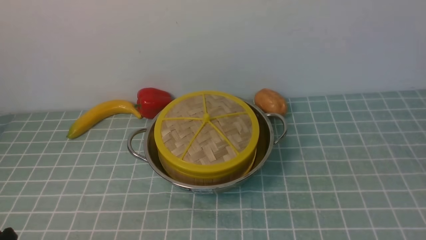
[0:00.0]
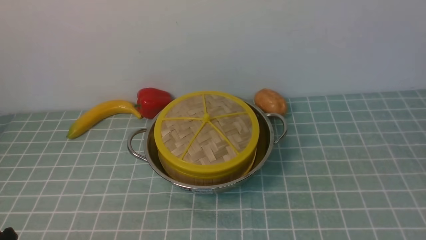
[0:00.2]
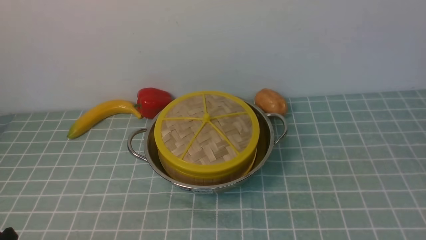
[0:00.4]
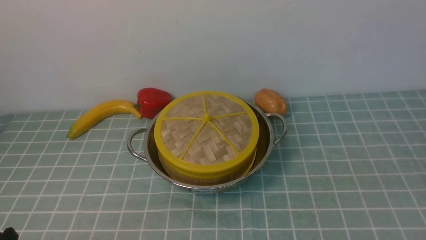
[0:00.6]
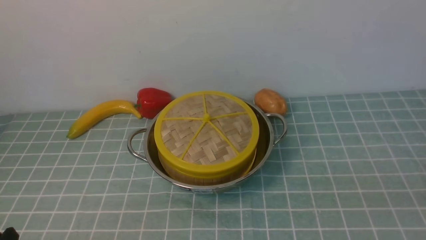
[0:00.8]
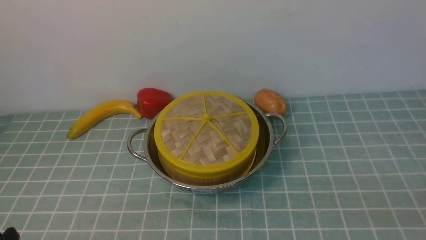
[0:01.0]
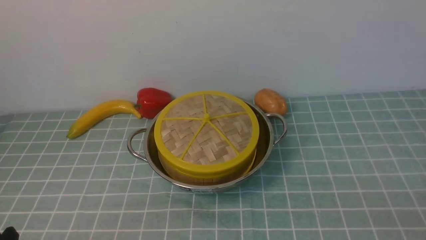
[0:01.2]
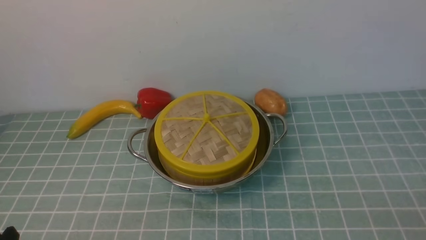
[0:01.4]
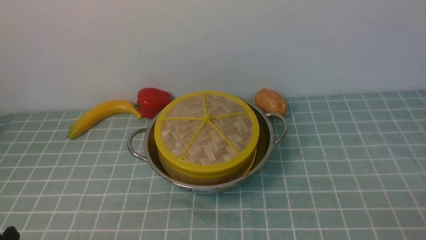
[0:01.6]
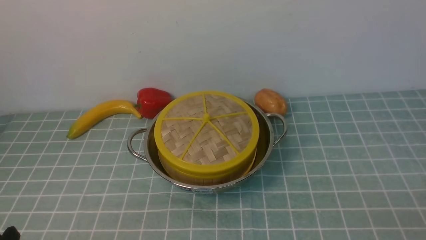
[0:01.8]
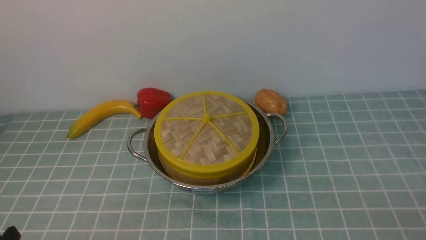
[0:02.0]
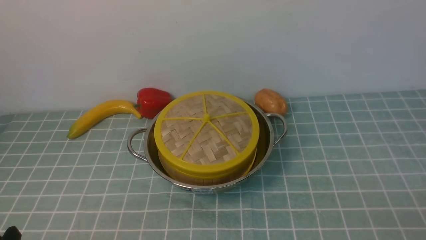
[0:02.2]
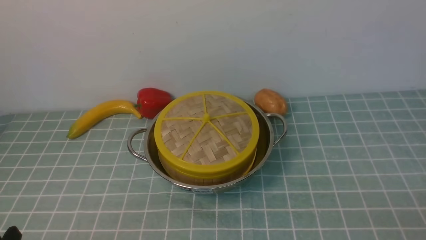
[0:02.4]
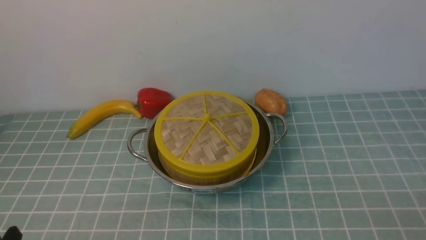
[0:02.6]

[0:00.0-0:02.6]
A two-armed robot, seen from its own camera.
Task of the whole recording: place the steamer in the pot on the blue tablecloth, and put the lid on the steamer.
0:01.2 to 0:02.6: Neither gripper changes place.

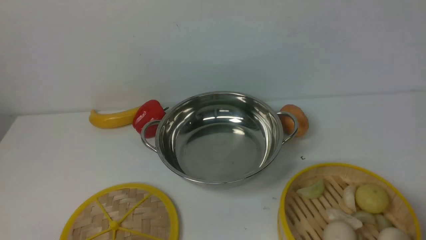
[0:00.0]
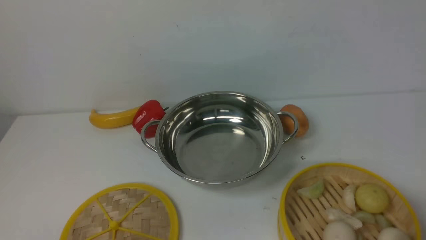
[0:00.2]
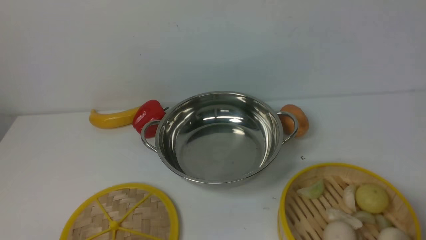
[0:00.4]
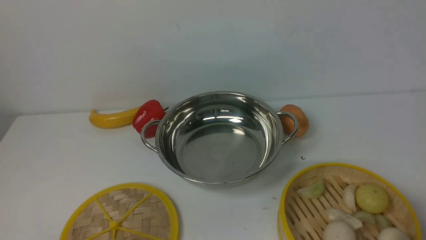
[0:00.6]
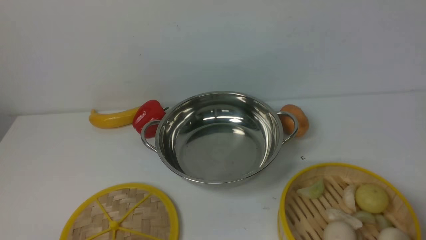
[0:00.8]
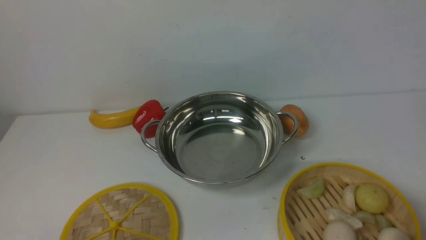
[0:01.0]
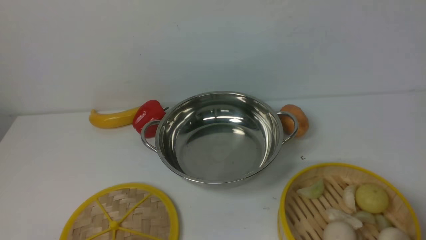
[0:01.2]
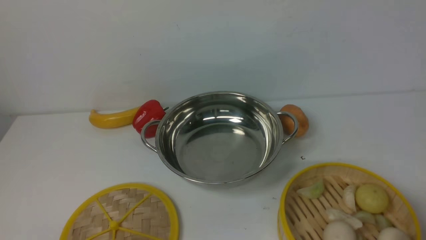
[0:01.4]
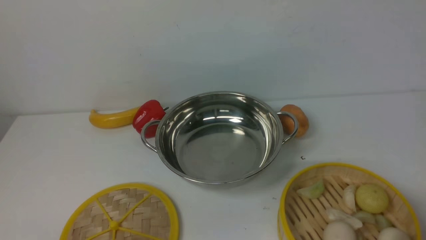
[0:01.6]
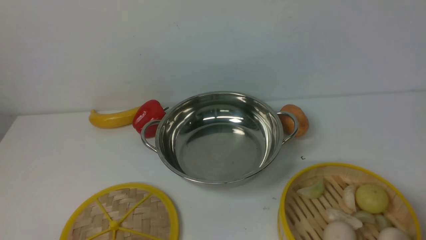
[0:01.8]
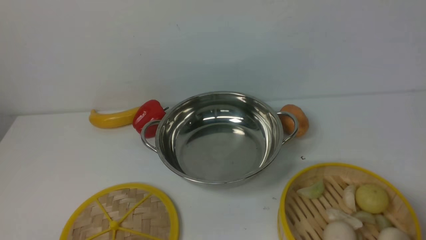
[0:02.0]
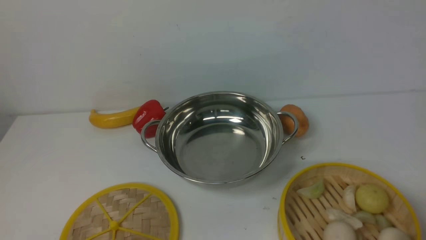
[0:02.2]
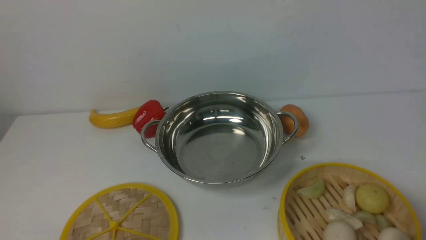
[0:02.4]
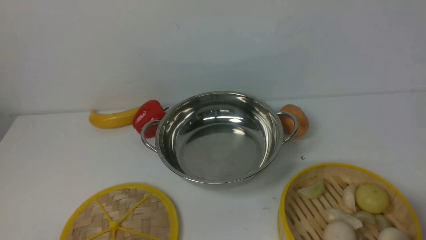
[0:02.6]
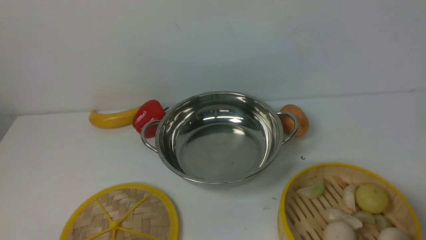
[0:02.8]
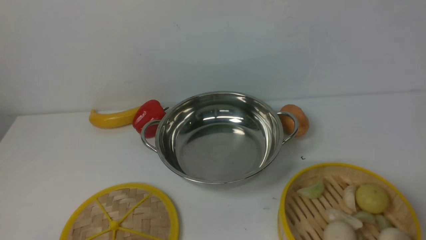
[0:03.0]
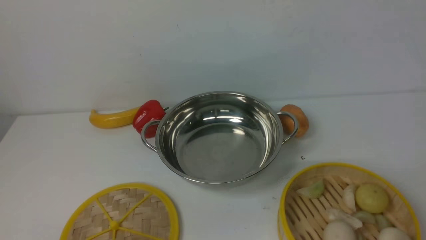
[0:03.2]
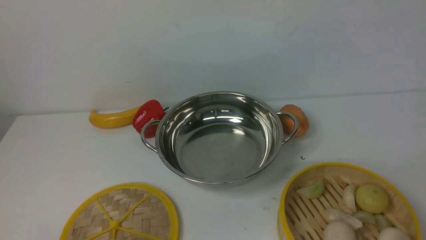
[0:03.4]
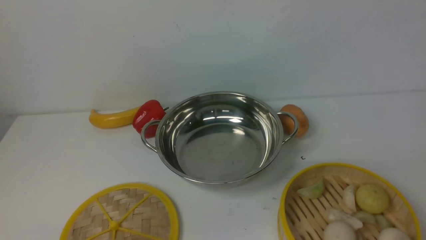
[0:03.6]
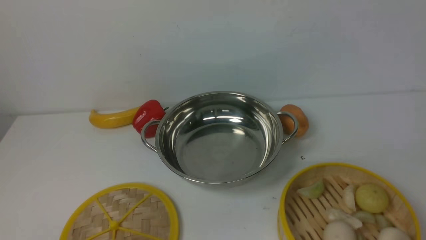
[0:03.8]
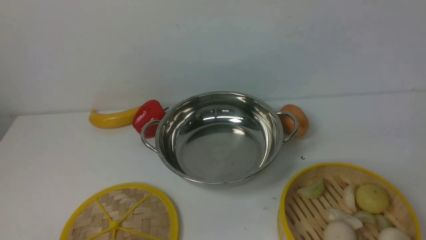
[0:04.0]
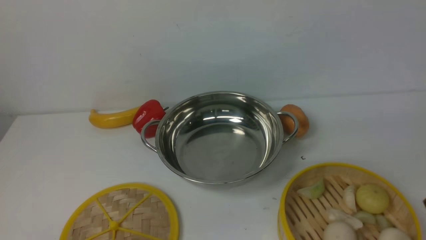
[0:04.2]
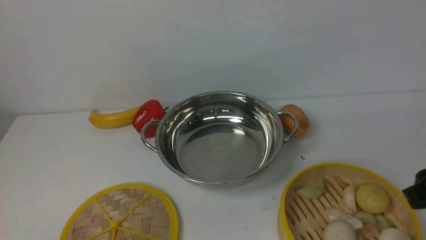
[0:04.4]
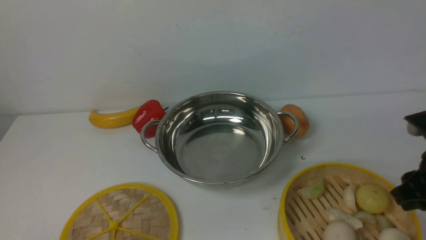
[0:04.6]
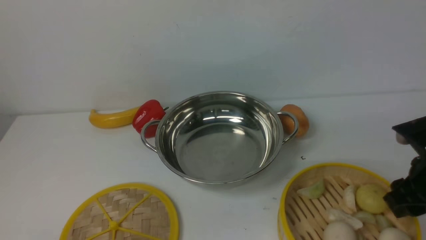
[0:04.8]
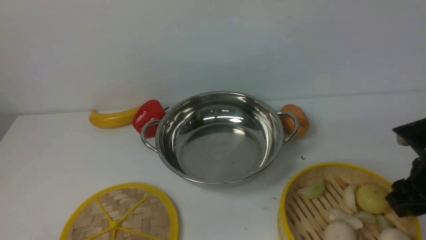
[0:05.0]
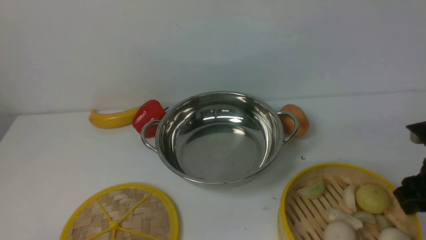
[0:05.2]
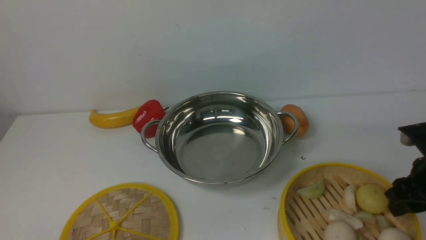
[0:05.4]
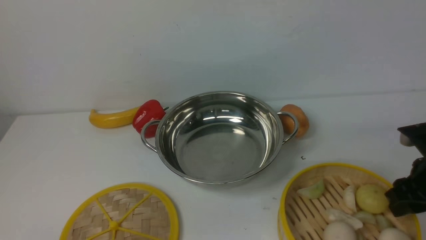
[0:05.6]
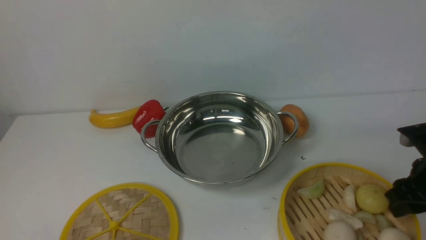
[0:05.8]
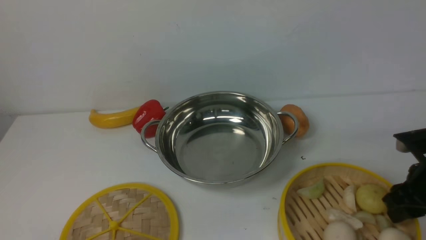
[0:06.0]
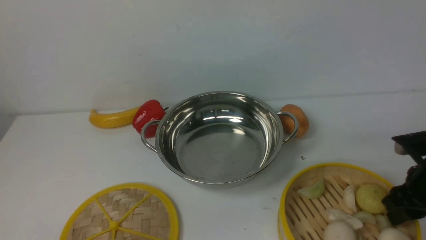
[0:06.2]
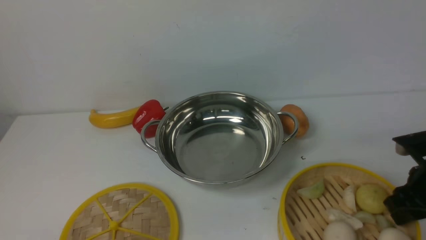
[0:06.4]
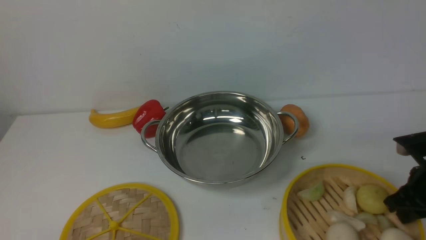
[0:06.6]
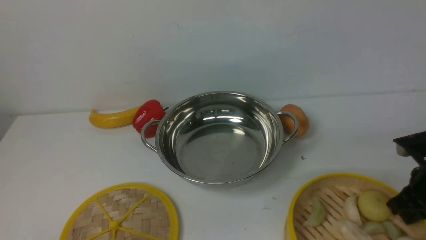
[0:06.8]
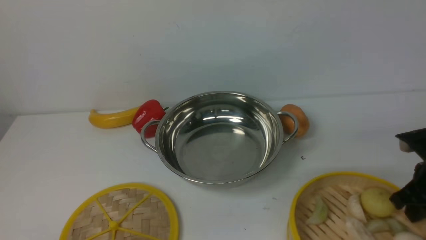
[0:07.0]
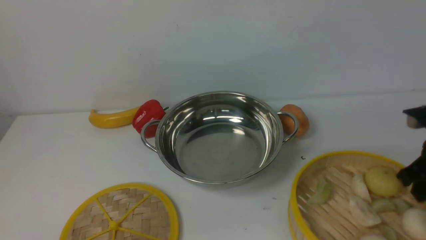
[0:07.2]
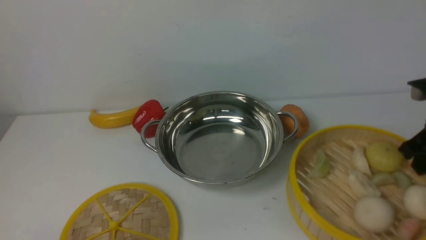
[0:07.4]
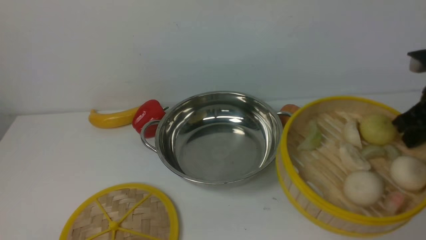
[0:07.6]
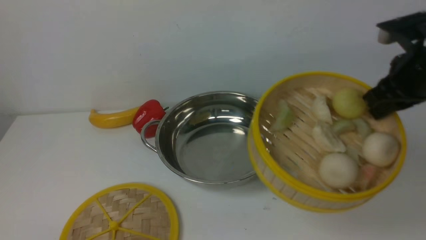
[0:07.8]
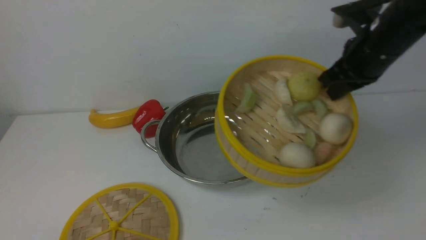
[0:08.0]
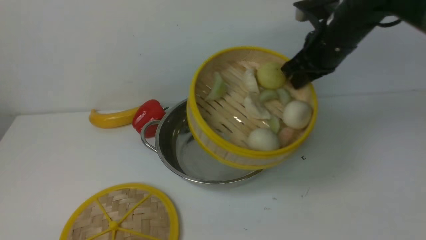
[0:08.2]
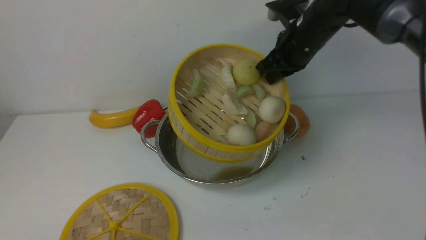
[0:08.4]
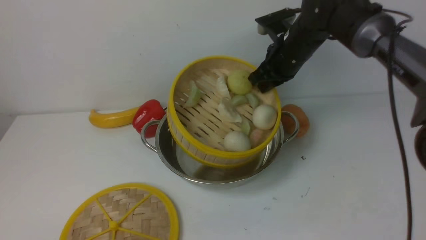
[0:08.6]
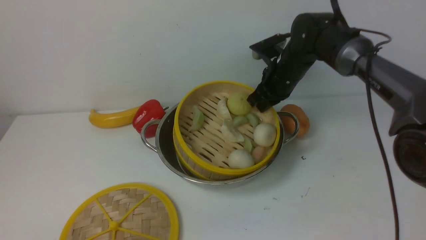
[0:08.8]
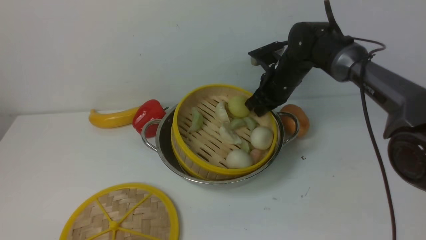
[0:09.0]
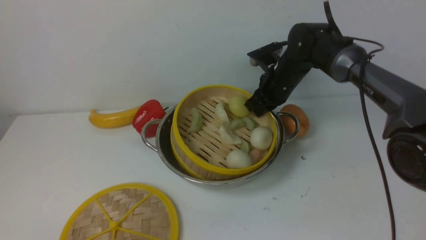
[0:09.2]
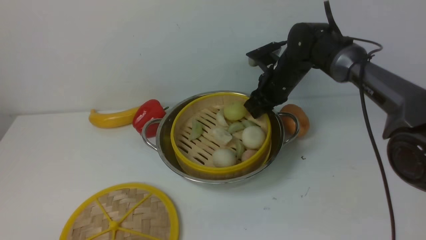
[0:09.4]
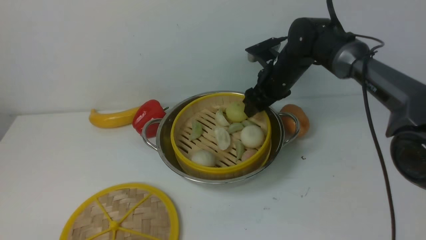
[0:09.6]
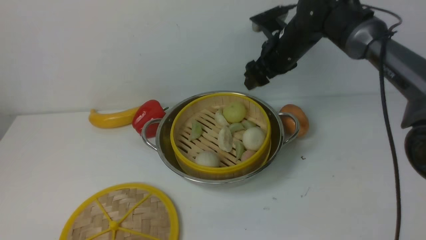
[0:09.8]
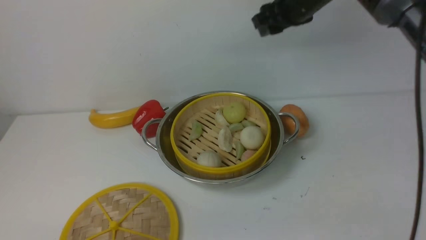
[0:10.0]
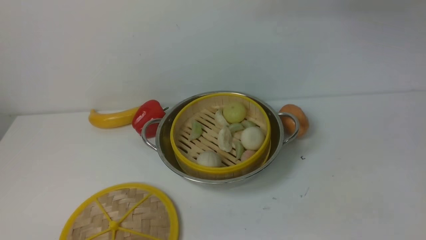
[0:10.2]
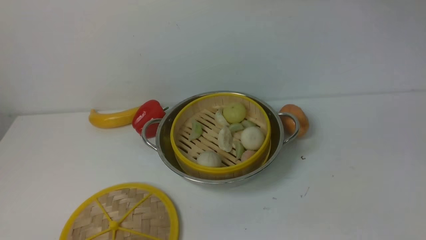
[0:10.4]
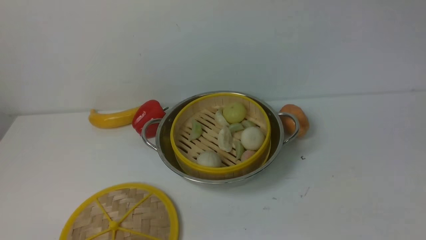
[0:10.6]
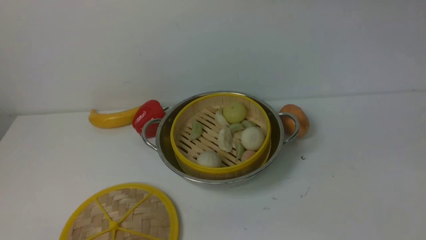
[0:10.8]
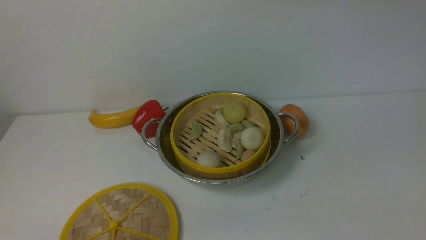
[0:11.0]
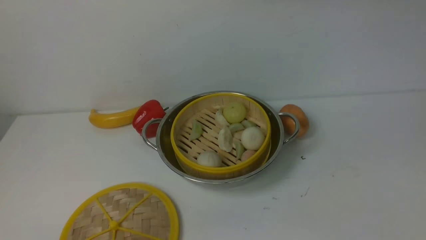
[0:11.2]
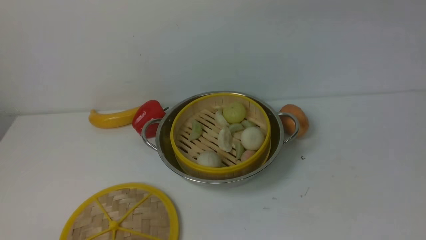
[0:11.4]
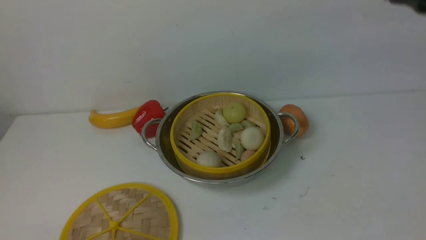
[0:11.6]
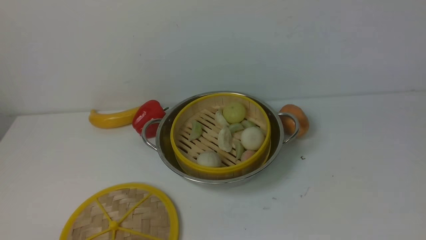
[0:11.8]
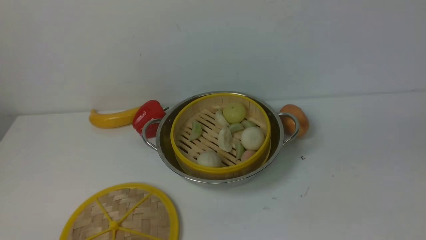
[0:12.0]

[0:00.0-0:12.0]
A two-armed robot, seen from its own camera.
Task of the whole recording: place the steamer in the pot on the white table, and put the lid on the steamer.
Step, 0:00.0 to 0:07.6: use the right arm to lift the steamer closest to it.
Step, 0:07.8 to 0:10.6: use the right arm to put the steamer into the iron steamer pot in the middle.
0:00.0 to 0:01.6: Both grippers stay put.
0:03.0 to 0:04.4: The right gripper shifts about 15 cm forward.
0:04.4 to 0:06.0: The right gripper is displaced downward and forward by about 10 cm.
0:06.0 to 0:07.6: The right gripper heads upward and forward, covering approximately 15 cm, and closes.
0:07.6 to 0:09.0: The right gripper is displaced to the left, forward and downward by some 25 cm.
0:09.0 to 0:10.4: The right gripper is displaced upward by some 25 cm, and opens, then closes once more.

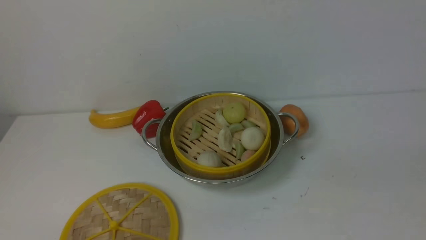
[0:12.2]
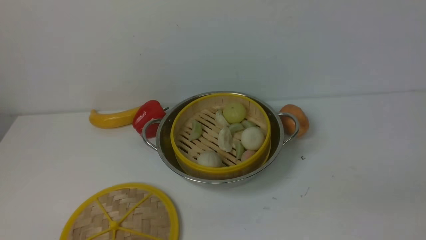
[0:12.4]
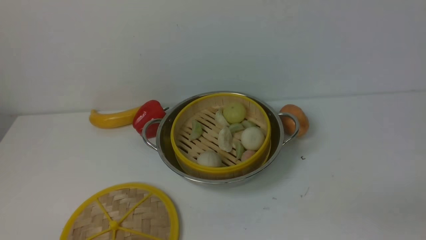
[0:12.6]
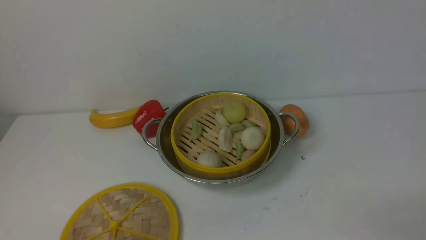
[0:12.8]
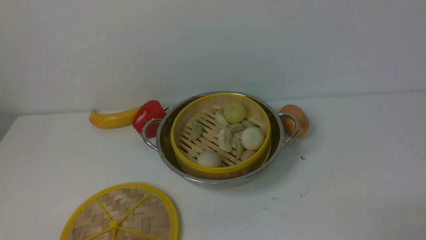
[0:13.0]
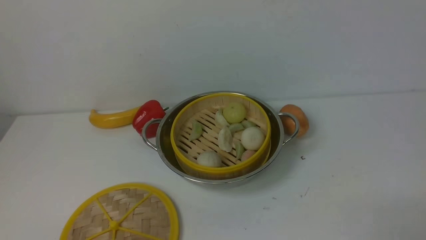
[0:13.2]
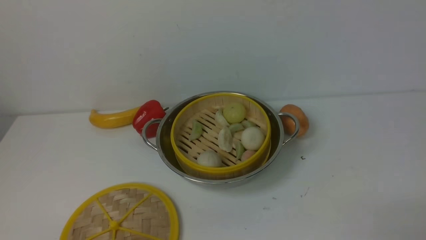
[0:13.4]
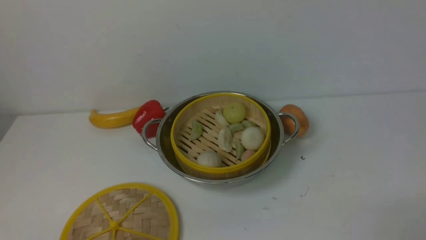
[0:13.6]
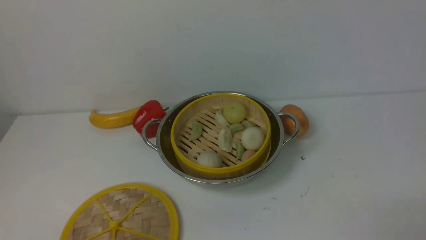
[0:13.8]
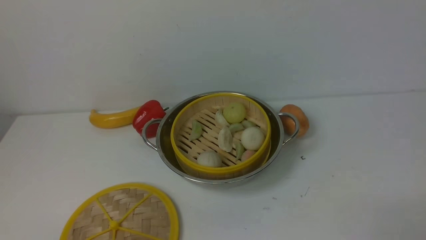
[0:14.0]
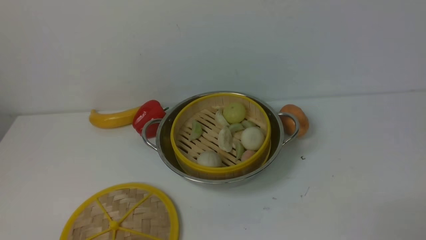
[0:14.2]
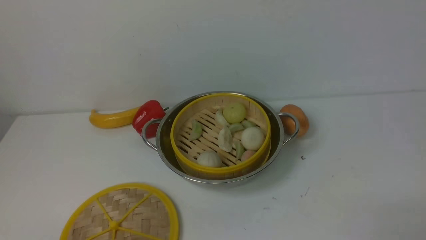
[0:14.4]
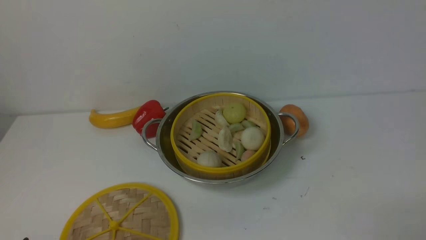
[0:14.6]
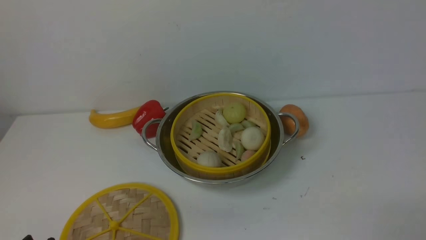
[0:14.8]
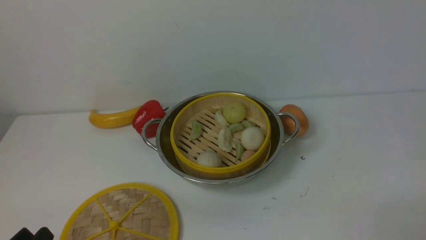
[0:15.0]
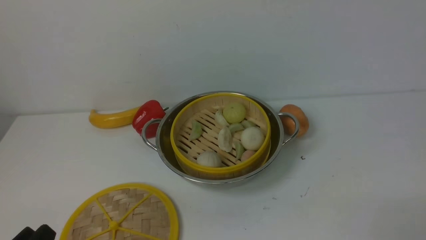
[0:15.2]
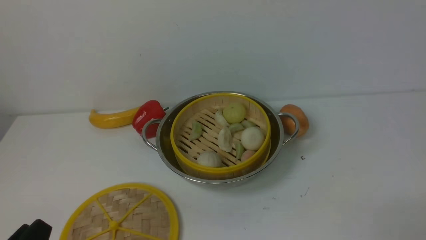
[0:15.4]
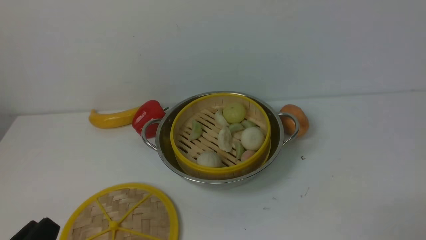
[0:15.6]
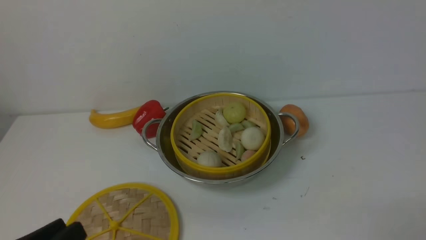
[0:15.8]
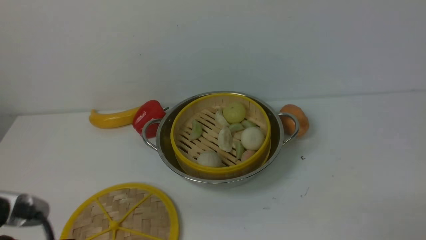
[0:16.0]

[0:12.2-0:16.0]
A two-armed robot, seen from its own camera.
Task of the whole recording: place the steamer in the pot on the white table, and put the lid on the steamer.
0:14.8 to 0:16.0: The left gripper goes about 10 cm upward.
